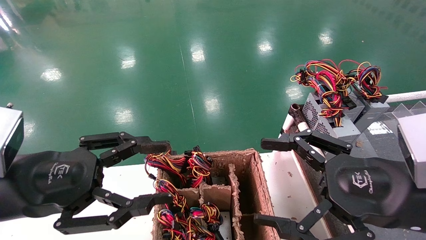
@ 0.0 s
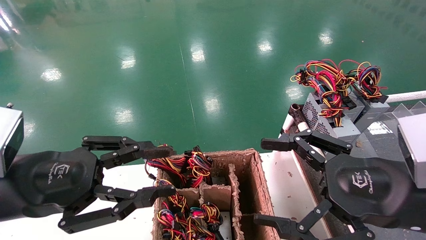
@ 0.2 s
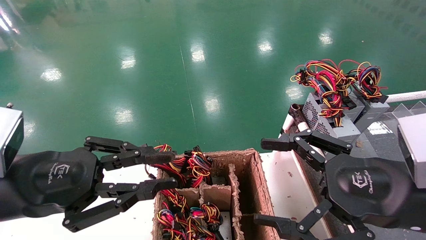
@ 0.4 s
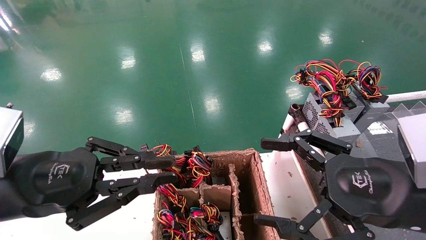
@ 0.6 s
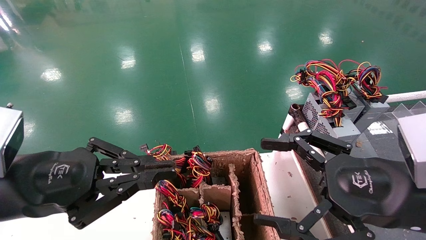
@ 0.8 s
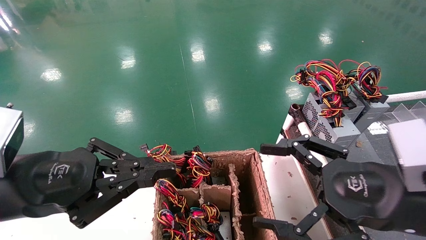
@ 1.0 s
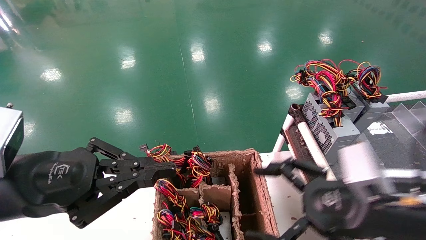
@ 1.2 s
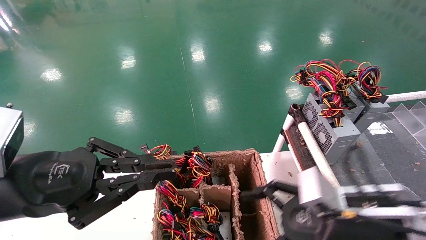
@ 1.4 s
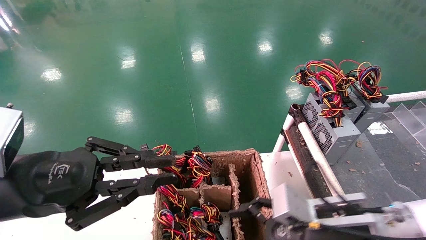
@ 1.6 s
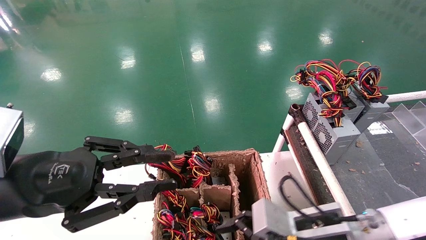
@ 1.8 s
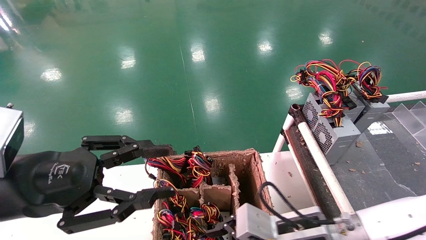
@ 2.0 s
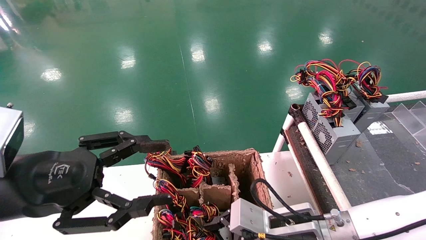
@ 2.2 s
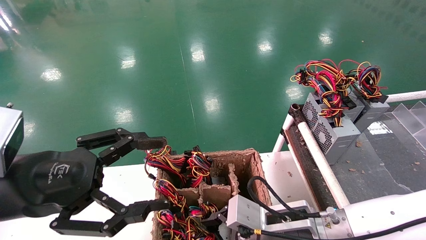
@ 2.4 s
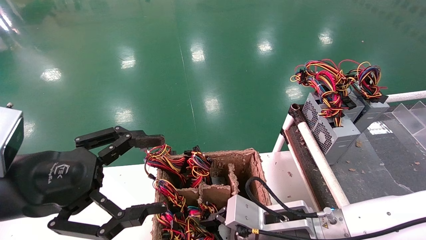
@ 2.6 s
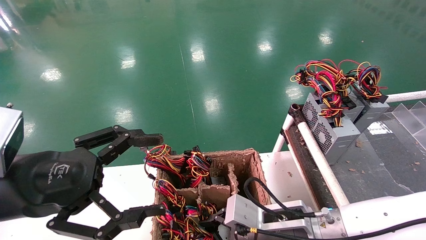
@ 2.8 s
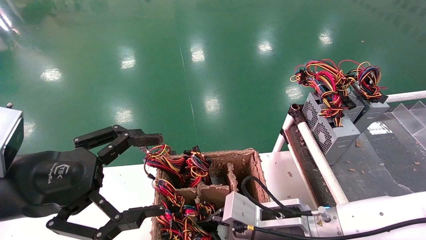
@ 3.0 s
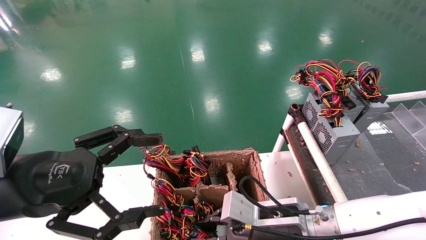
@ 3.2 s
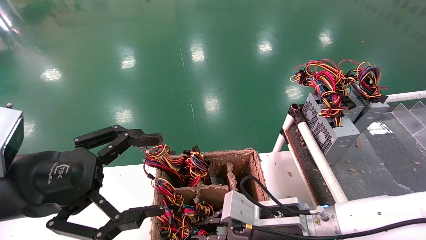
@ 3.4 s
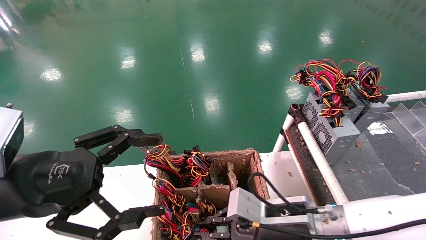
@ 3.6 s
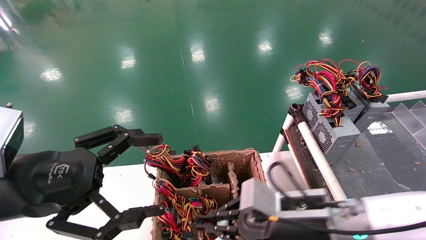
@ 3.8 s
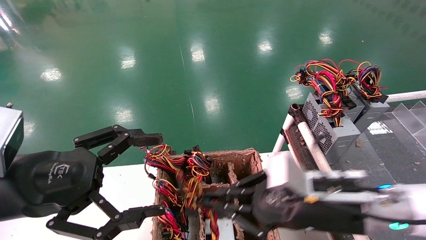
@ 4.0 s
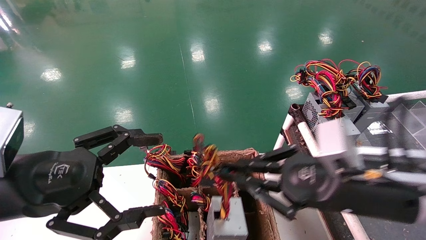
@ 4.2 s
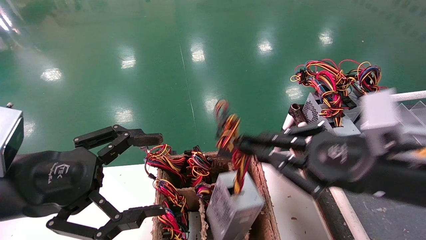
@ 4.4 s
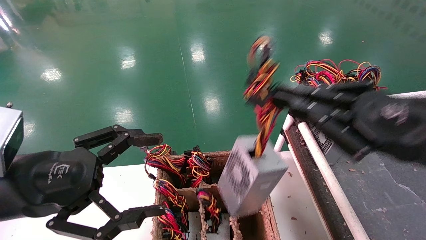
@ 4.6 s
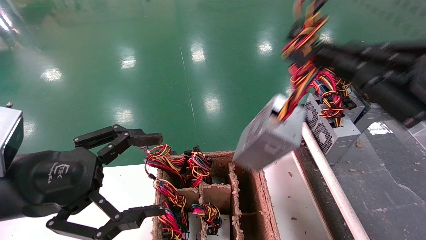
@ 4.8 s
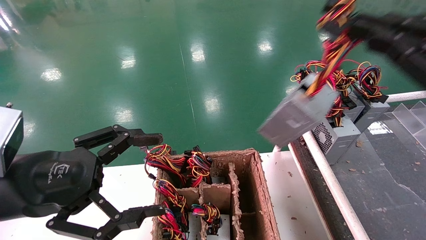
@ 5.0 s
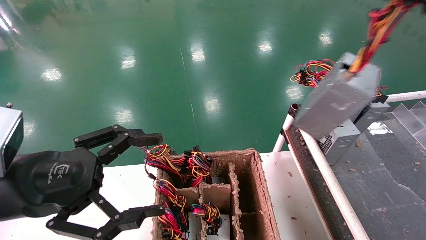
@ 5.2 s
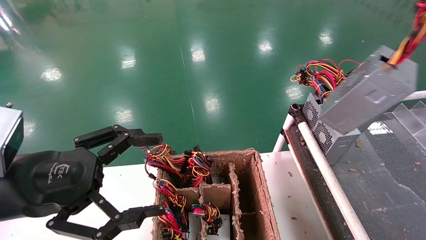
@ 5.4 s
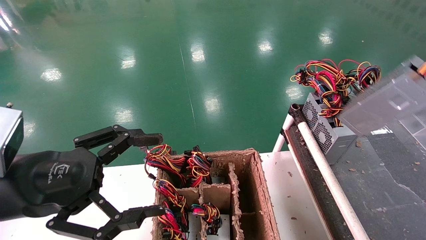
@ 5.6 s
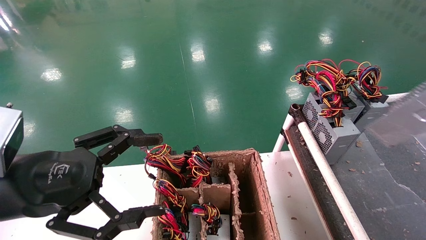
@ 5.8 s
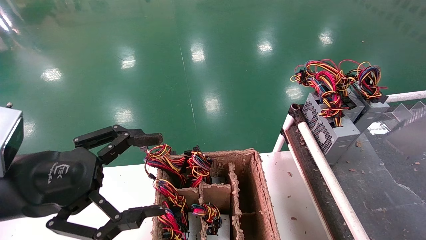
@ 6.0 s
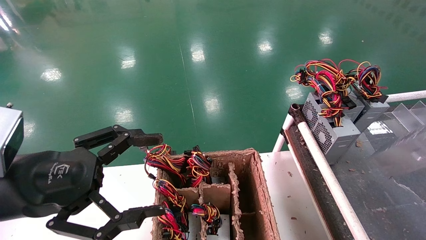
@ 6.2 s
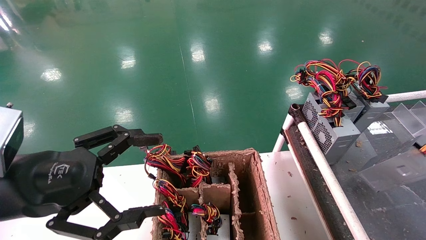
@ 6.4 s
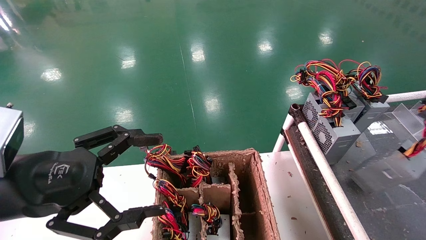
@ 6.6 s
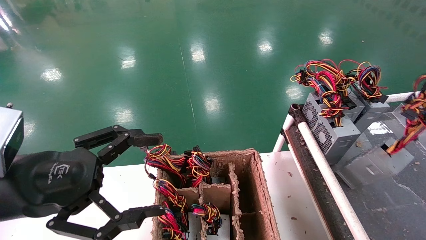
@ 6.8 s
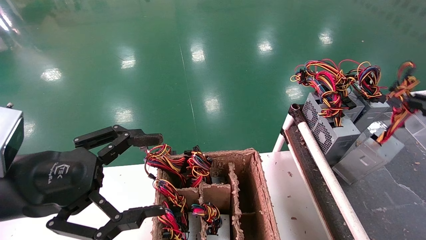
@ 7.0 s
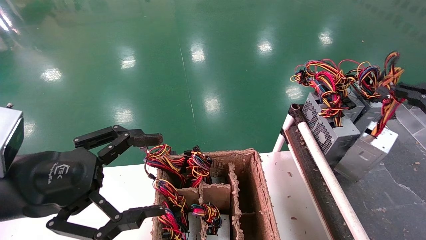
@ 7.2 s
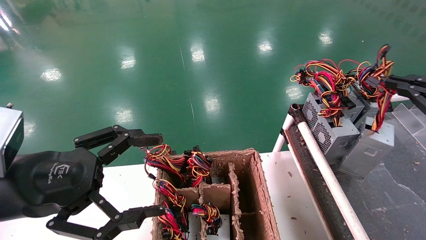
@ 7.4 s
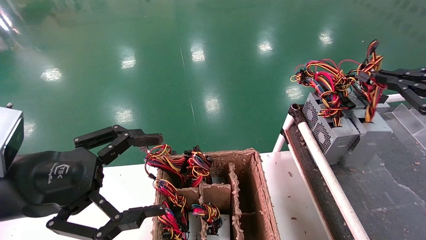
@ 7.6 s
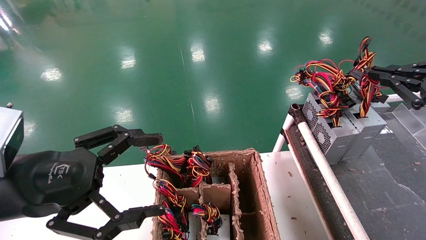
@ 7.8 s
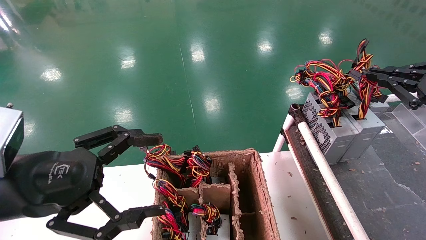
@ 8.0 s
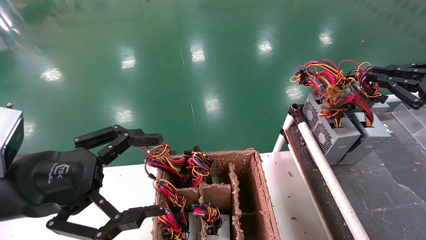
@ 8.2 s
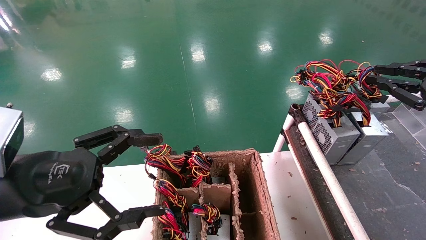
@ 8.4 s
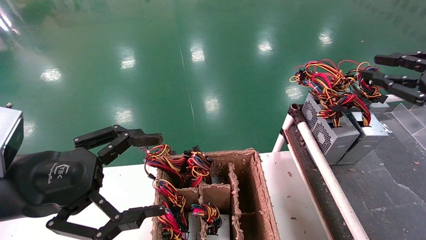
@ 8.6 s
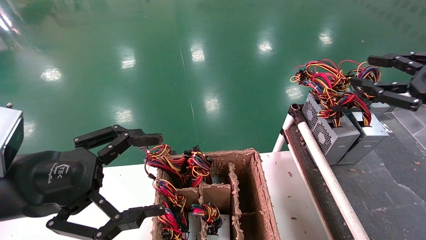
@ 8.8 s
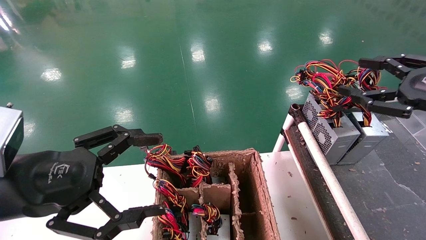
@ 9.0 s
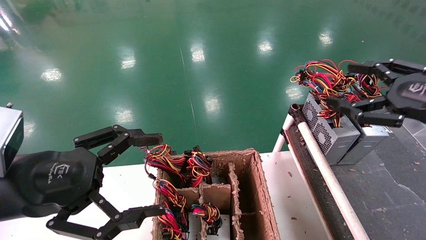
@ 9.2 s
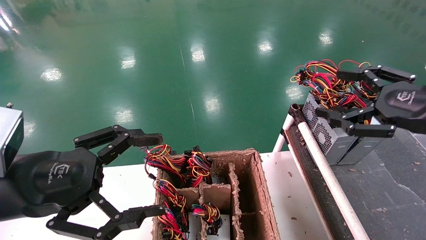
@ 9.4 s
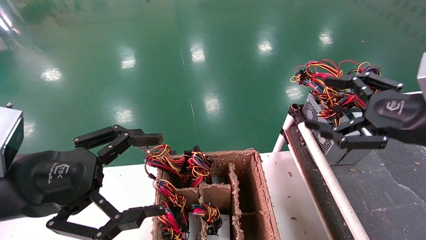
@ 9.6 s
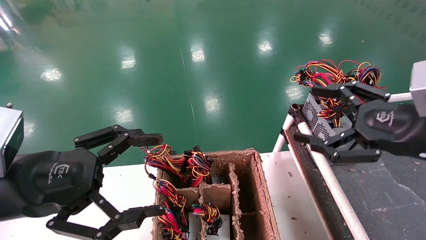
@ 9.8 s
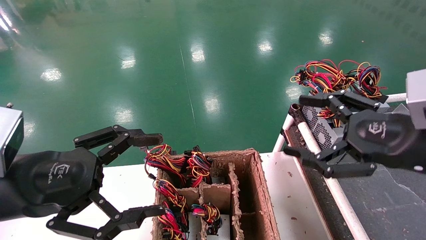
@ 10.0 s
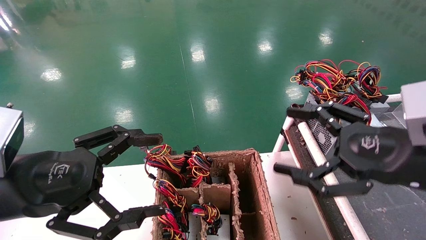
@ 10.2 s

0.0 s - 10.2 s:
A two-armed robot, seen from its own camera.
Step, 1.2 s - 3.4 s: Grab and lift the power supply from the large box.
Step, 3.6 s - 8.6 s: Place the power supply on the operating table.
0.0 s - 1.4 s: The left gripper closes its fingers. The right gripper is displaced downward by about 5 cm.
1.4 s - 3.0 s: The right gripper goes approximately 10 cm to the left, downward and forward, and closes its fingers. Meanwhile the left gripper opens up.
3.0 s - 4.4 s: The right gripper is displaced upward, to the right and backward by approximately 20 cm, and closes up.
4.4 s - 5.8 s: The right gripper moves to the right, roughly 25 cm.
5.8 s - 7.2 s: The right gripper heads forward and downward, covering about 10 cm.
7.2 s - 8.8 s: The right gripper changes place by about 5 cm, and opens its fingers.
8.8 s - 10.2 s: The right gripper is displaced to the left and downward by roughly 15 cm, and opens its fingers.

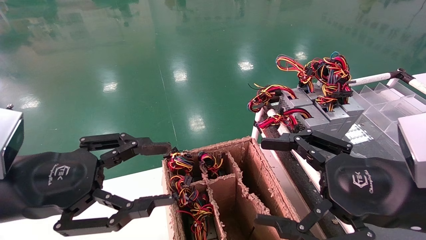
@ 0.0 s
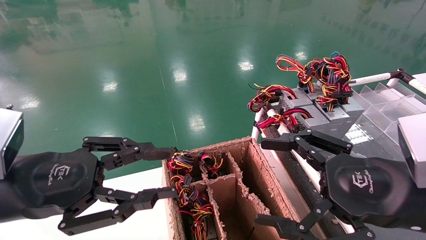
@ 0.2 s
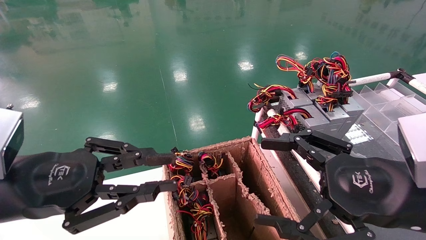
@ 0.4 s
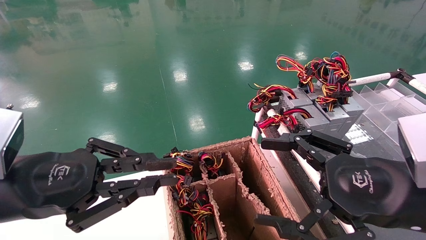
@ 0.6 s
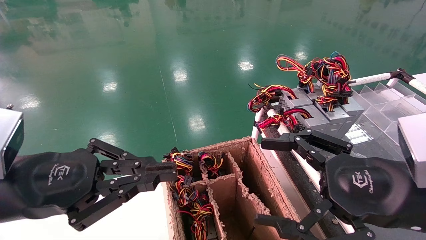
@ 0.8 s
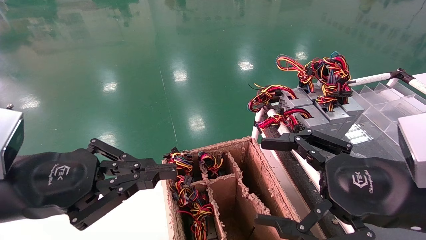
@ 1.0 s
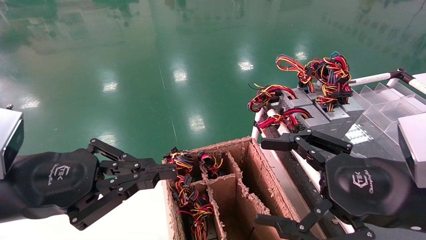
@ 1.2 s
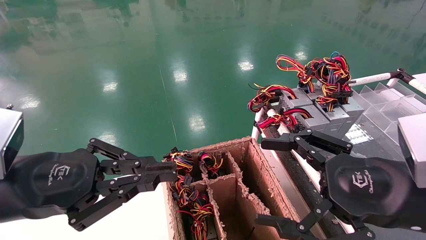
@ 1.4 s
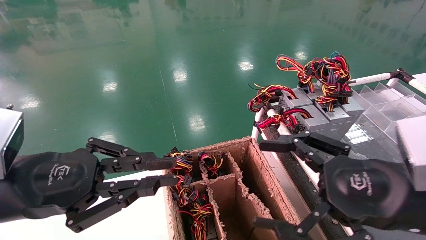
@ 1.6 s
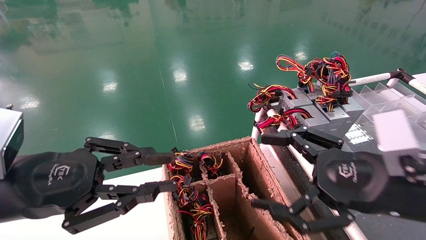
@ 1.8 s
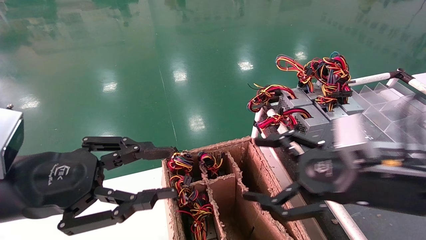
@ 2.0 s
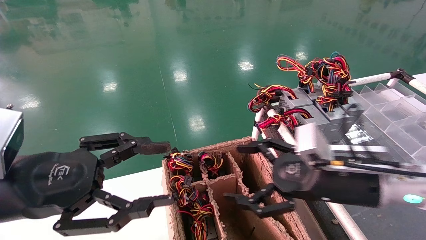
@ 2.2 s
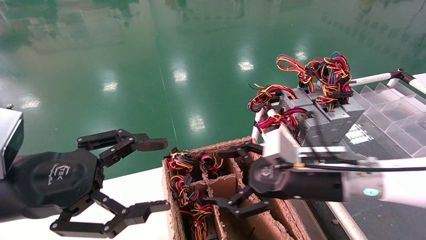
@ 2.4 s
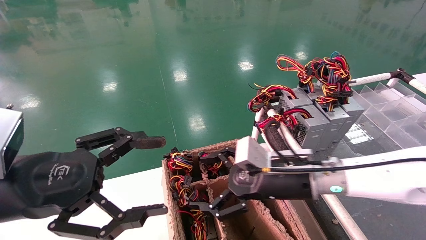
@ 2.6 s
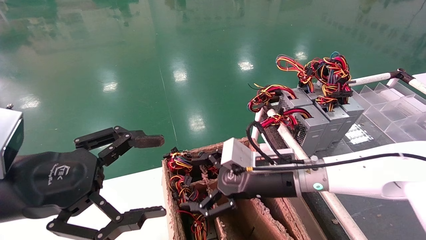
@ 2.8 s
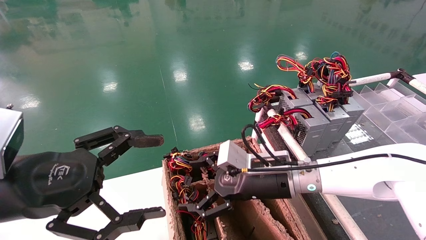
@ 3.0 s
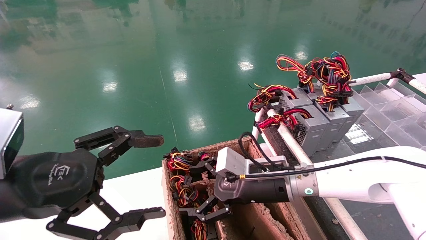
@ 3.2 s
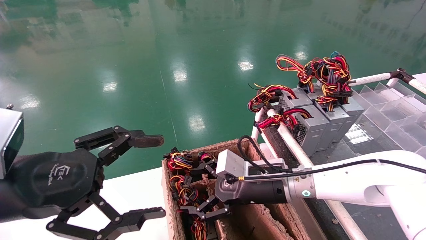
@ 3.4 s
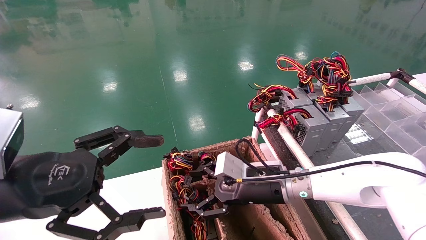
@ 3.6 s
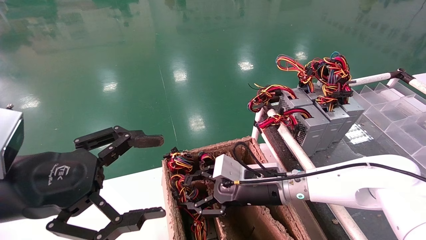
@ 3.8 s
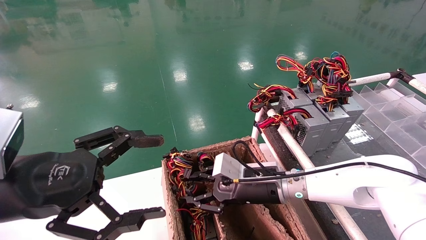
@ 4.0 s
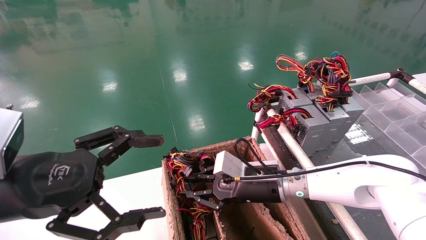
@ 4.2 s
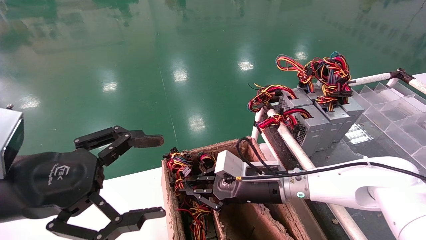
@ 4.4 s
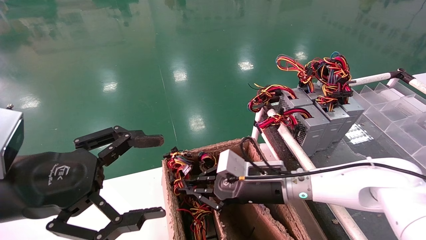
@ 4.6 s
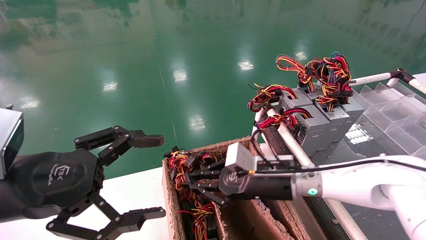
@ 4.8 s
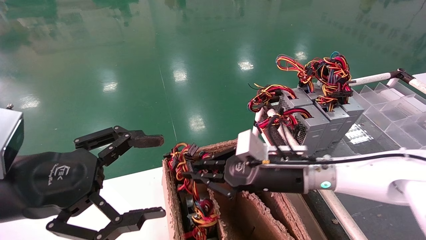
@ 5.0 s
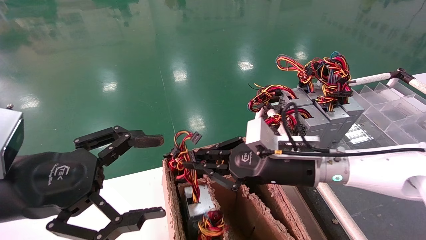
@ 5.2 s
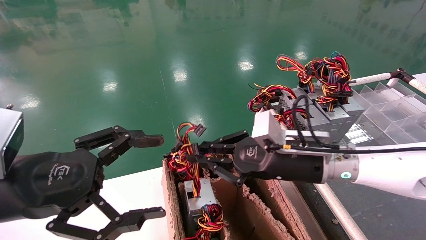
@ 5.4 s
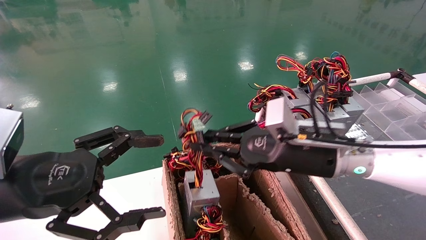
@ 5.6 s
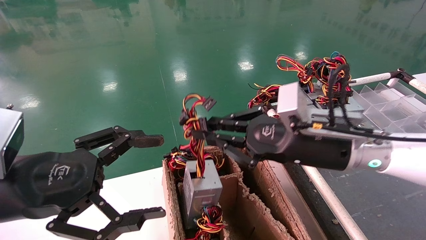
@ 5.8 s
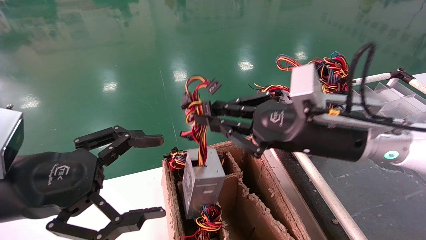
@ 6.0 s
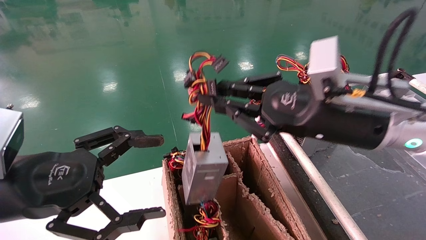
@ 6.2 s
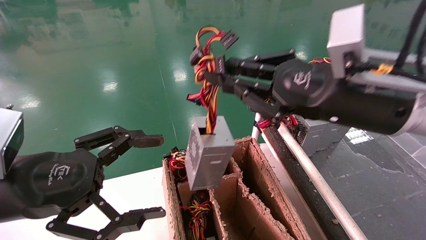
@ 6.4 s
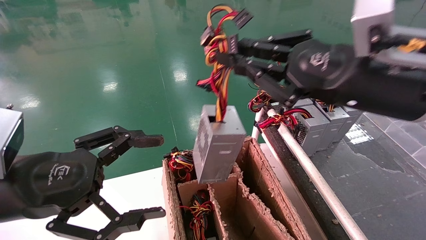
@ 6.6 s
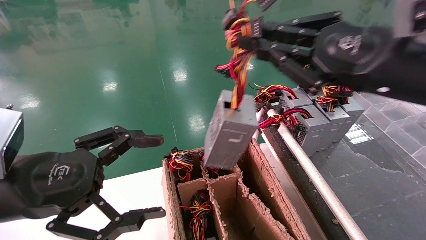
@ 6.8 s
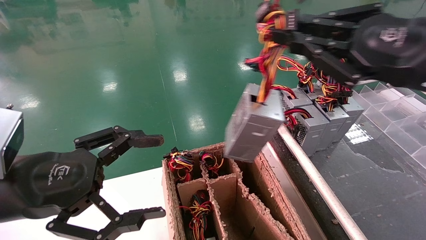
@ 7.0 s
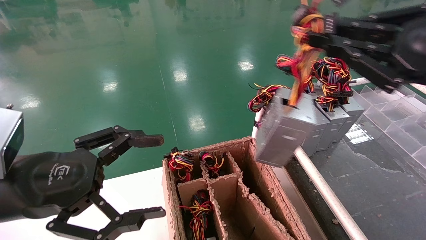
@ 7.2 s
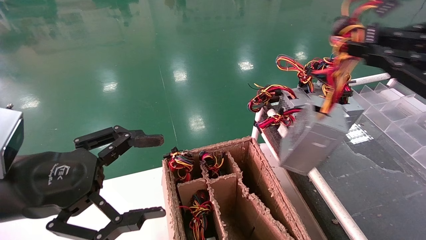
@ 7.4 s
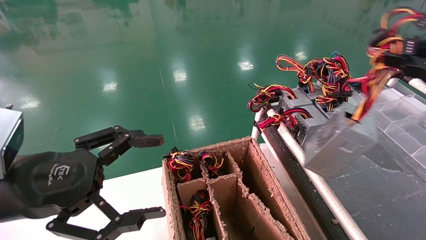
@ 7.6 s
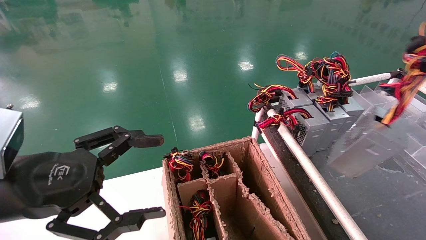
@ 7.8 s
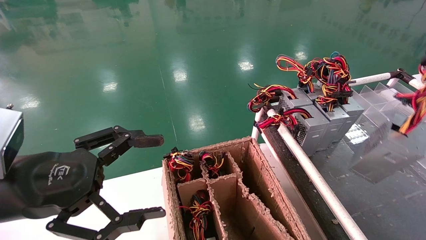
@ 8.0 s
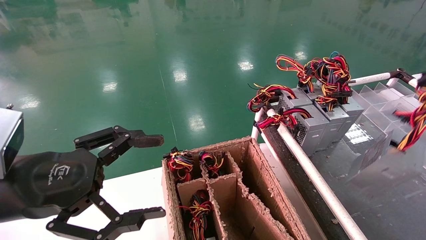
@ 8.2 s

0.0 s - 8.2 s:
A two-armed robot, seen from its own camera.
Step, 1.2 s - 4.4 s: Grab and lift the power supply from the large box.
0.0 s - 1.6 s: The left gripper closes its fingers.
1.6 s - 3.2 s: The left gripper opens up; the right gripper is displaced forward, to the left and downward by about 25 cm.
3.2 s - 5.0 s: The right gripper closes up.
5.0 s - 6.6 s: The right gripper goes roughly 20 cm upward, backward and to the right.
6.6 s - 8.2 s: The right gripper heads to the right, covering roughly 25 cm.
